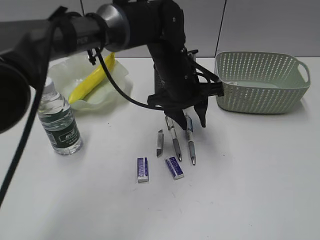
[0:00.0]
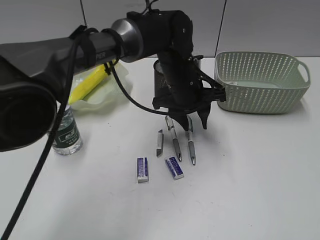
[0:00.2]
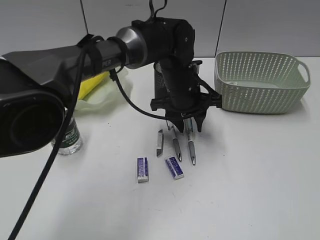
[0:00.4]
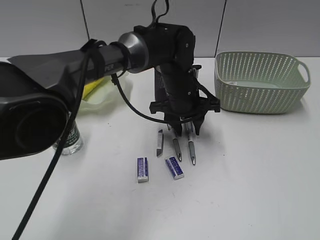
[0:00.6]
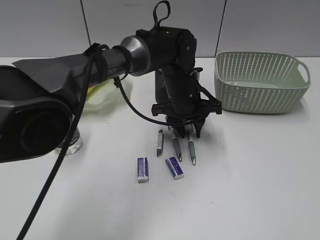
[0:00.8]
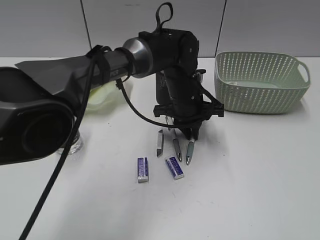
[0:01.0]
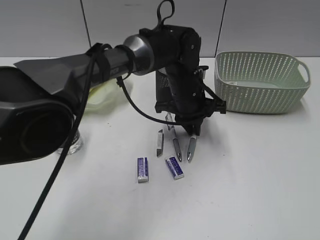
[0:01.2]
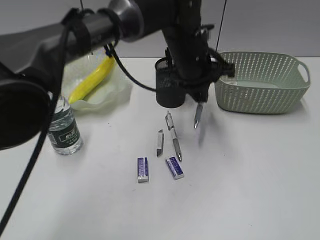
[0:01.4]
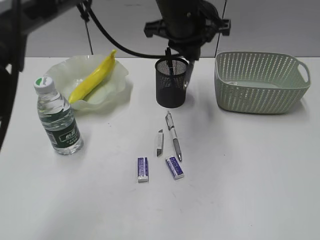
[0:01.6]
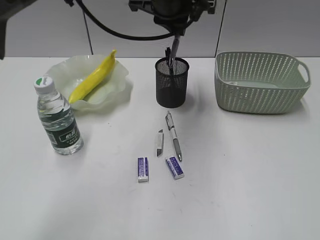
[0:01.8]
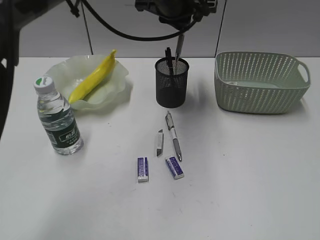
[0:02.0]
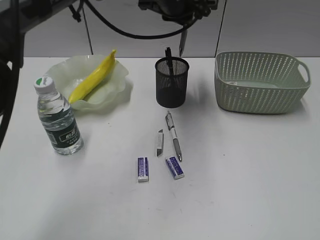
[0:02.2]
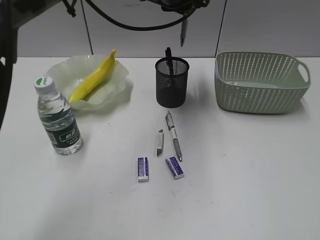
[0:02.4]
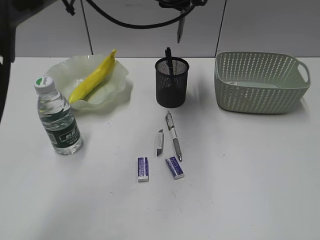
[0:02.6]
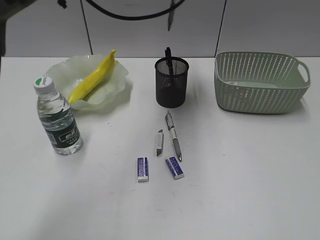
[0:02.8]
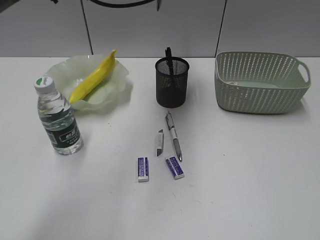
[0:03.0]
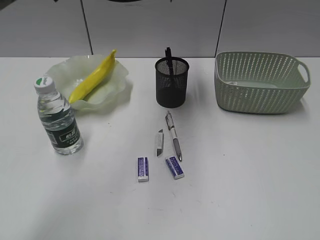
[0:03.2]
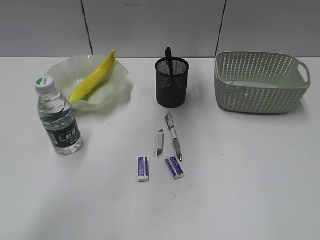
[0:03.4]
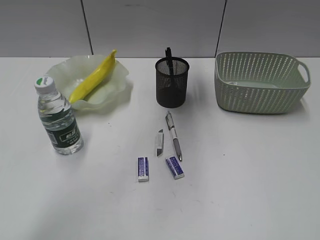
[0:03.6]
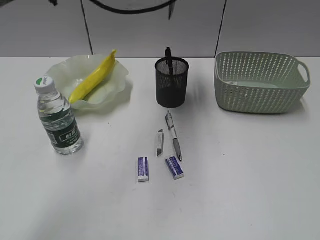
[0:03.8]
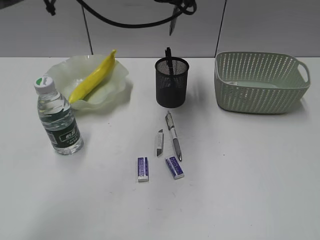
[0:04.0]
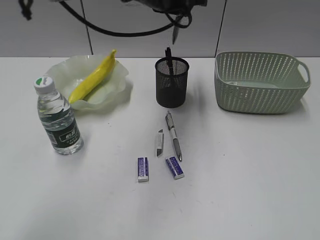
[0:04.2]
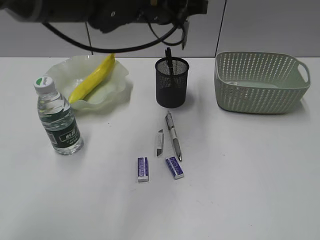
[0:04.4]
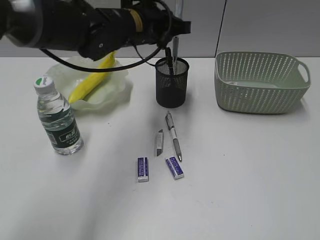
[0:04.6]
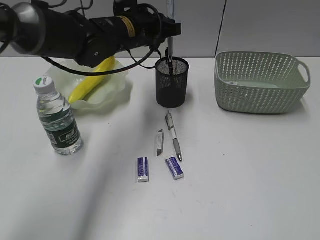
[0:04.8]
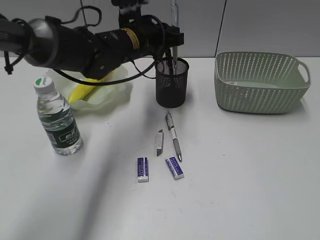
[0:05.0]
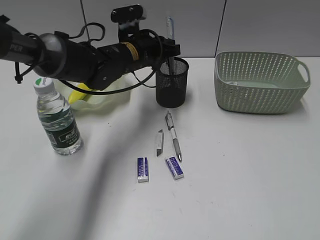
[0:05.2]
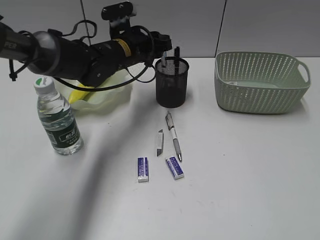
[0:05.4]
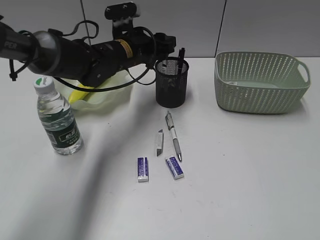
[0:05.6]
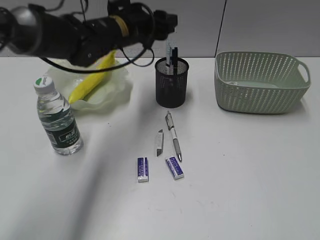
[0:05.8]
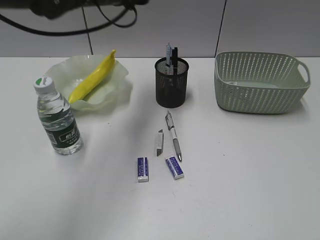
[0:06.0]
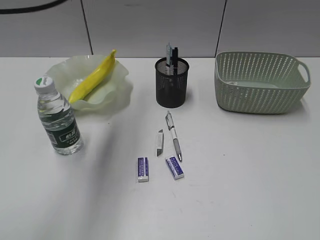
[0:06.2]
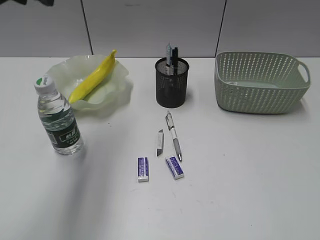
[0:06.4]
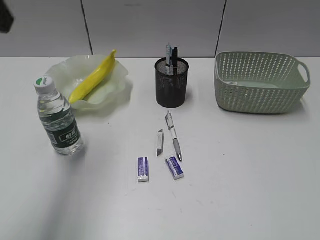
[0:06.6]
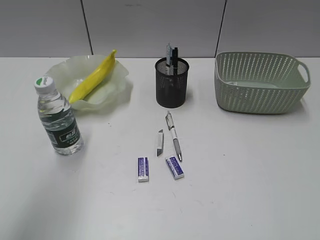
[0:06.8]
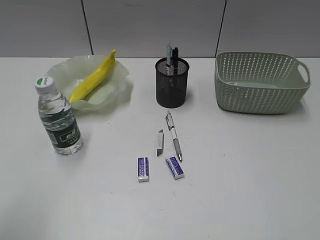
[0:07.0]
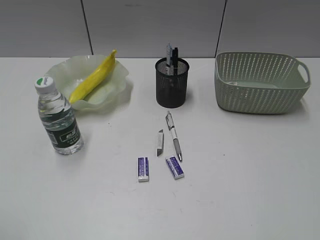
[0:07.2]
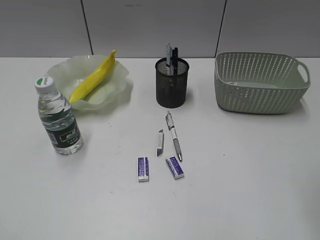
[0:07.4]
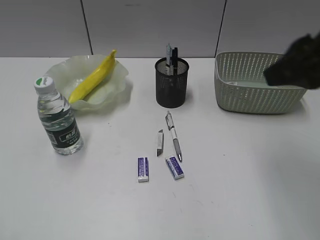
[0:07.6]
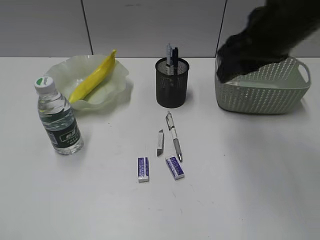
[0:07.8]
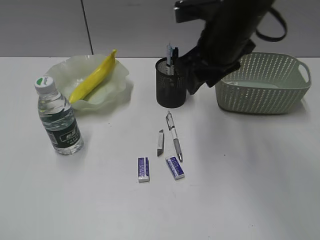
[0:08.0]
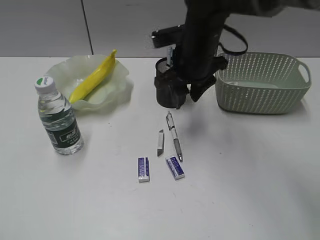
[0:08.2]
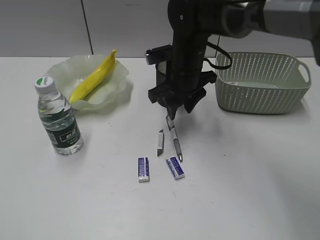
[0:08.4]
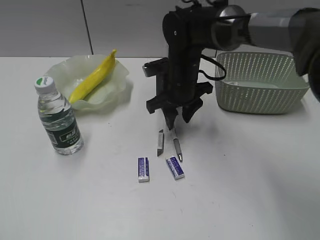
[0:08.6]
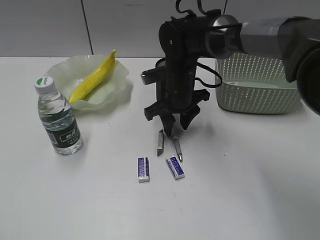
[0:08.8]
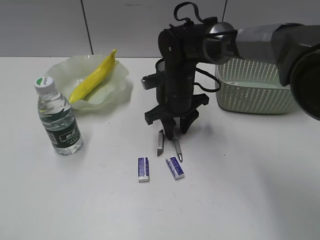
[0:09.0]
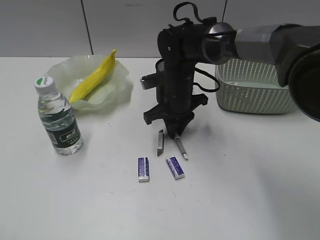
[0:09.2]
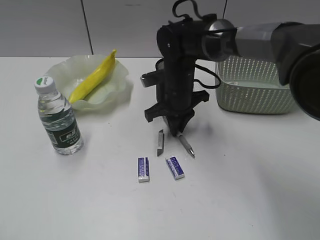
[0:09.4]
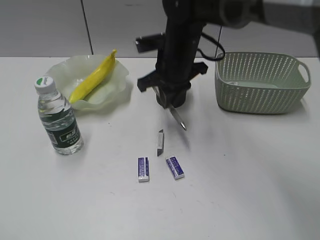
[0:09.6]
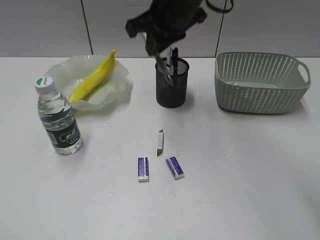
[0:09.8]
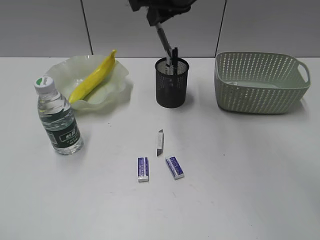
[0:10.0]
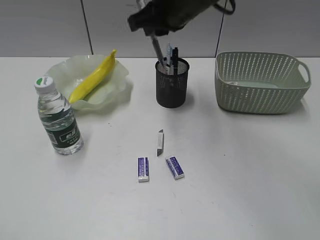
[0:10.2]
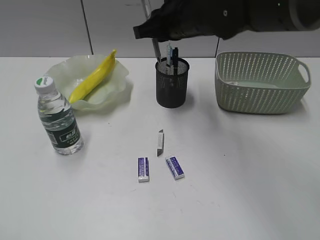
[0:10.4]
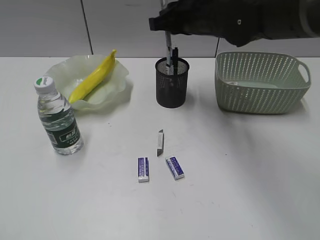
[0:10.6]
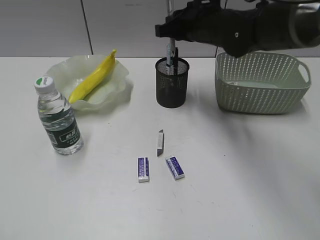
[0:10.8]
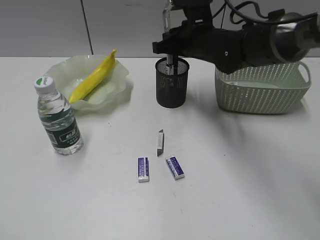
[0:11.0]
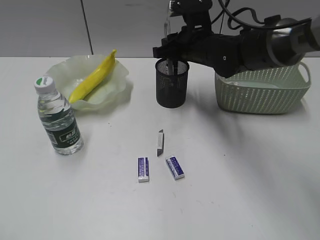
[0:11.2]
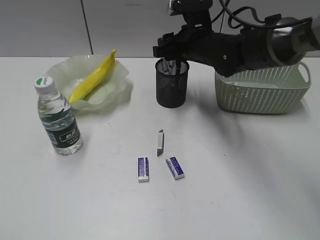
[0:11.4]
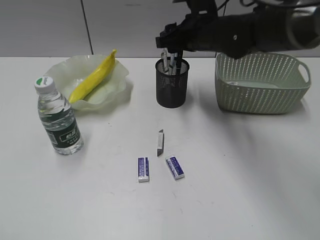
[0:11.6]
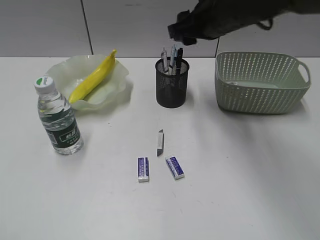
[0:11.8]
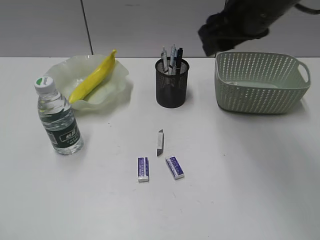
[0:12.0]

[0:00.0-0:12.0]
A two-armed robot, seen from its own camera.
Step, 0:01.2 to 0:05.4: Place the blue pen in pen holder with left gripper.
Step, 0:05.6 to 0:09.2: Grasp the gray pen with right gripper.
Step, 0:09.4 to 0:11.4: Place the gray pen in pen holder with right gripper.
0:00.0 to 0:01.6: The left gripper is displaced upward by about 10 cm, and closes up.
0:01.6 to 0:03.0: The left gripper travels forward and upward by about 10 cm.
0:03.0 to 0:04.4: The left gripper heads backward and downward, covering approximately 10 cm.
0:04.4 to 0:06.0: The left gripper moves to the left, about 5 cm, moves approximately 10 cm downward and comes back, and opens.
0:06.0 to 0:07.6: The right gripper shifts about 20 cm forward and to the left. The left gripper heads backward and to the left, covering approximately 50 cm.
0:07.6 to 0:09.0: The right gripper travels downward, forward and to the left by some 35 cm.
0:09.0 to 0:10.4: The right gripper is displaced upward by approximately 15 cm, and closes its fingers.
0:10.4 to 0:12.0: The right gripper shifts roughly 10 cm to the right, backward and upward, and opens its fingers.

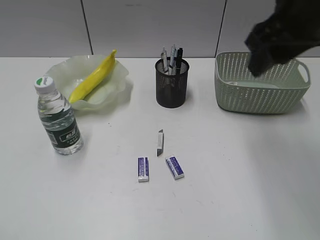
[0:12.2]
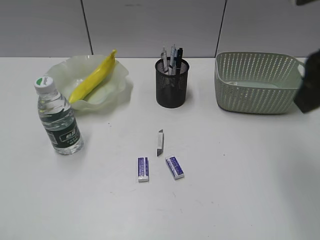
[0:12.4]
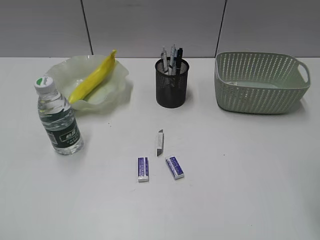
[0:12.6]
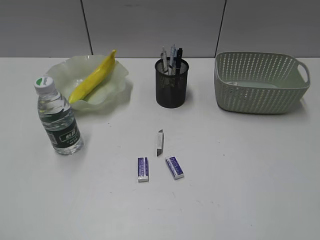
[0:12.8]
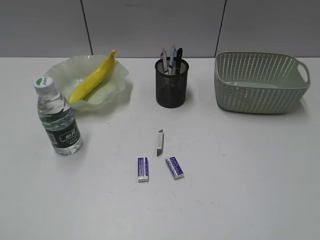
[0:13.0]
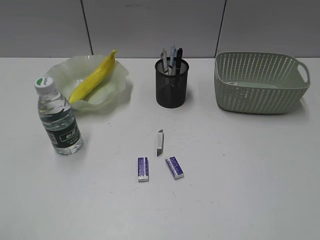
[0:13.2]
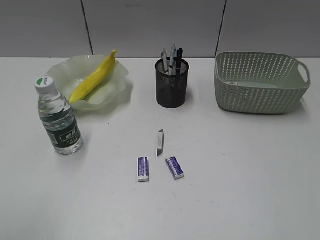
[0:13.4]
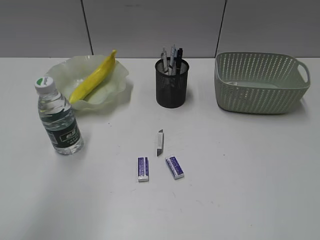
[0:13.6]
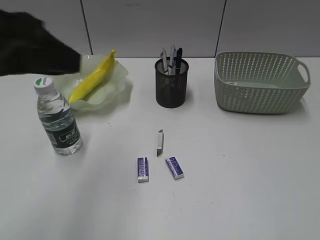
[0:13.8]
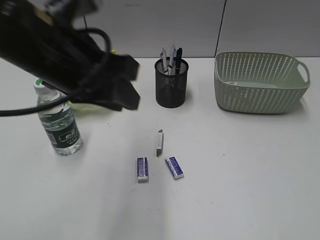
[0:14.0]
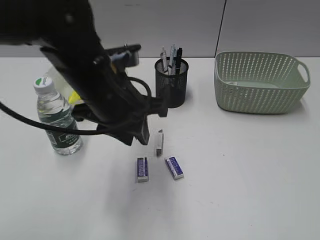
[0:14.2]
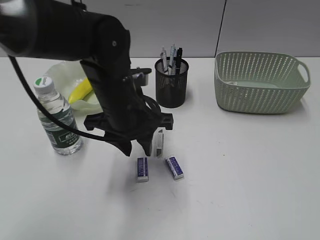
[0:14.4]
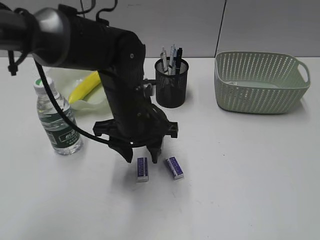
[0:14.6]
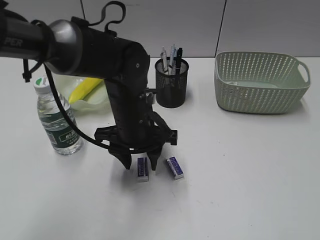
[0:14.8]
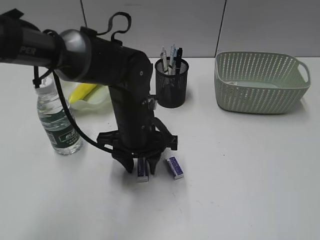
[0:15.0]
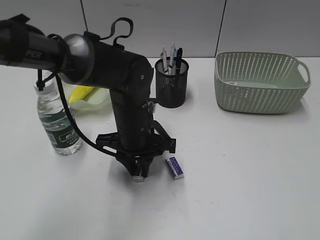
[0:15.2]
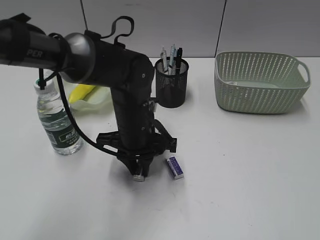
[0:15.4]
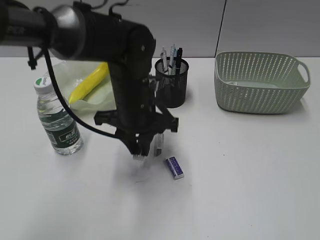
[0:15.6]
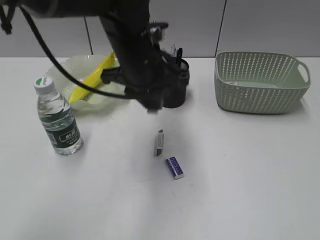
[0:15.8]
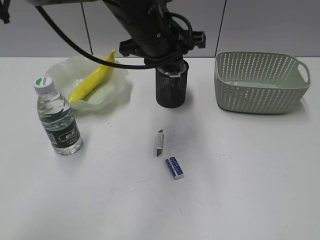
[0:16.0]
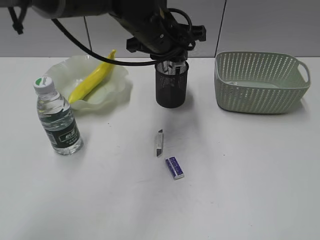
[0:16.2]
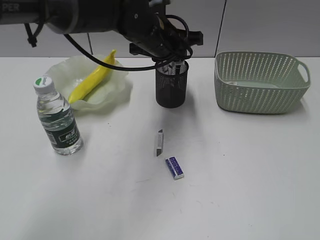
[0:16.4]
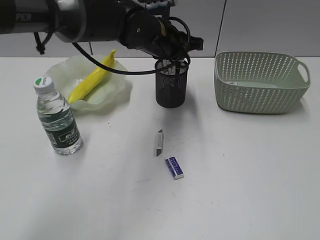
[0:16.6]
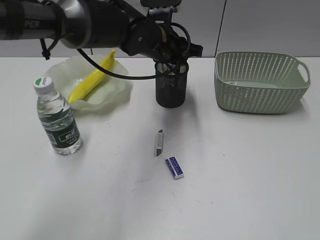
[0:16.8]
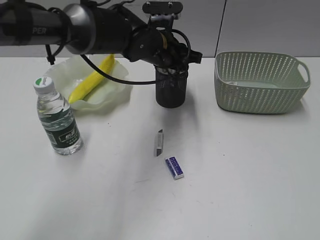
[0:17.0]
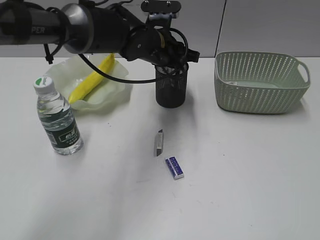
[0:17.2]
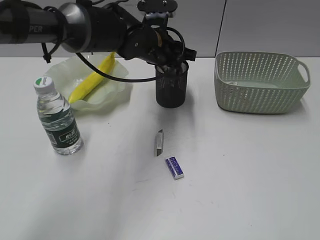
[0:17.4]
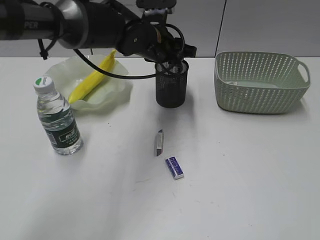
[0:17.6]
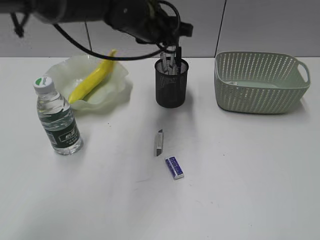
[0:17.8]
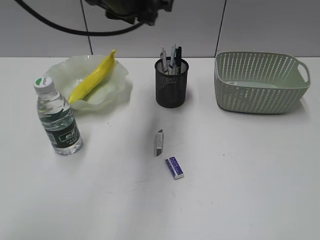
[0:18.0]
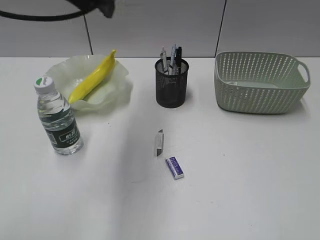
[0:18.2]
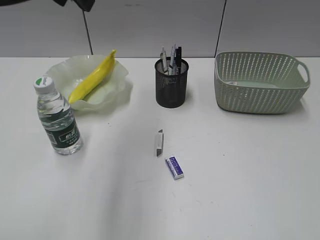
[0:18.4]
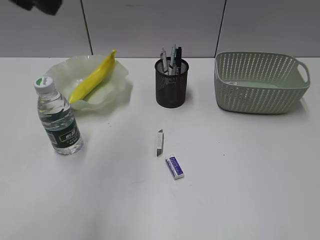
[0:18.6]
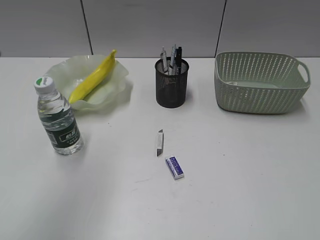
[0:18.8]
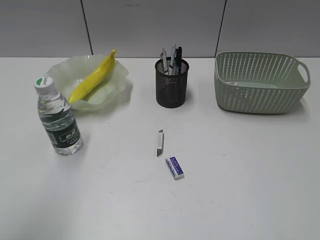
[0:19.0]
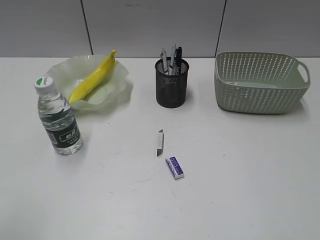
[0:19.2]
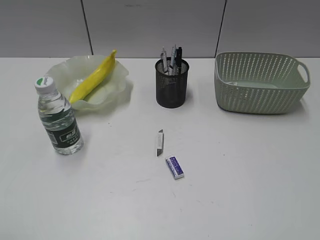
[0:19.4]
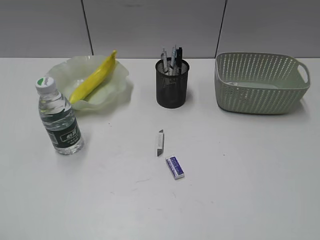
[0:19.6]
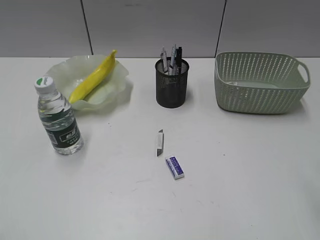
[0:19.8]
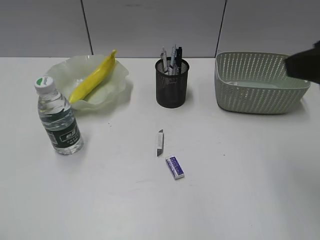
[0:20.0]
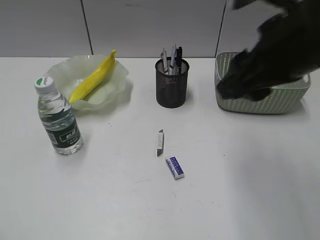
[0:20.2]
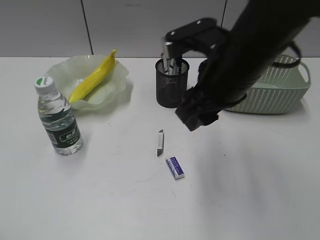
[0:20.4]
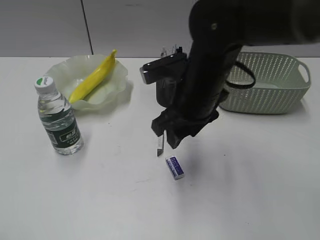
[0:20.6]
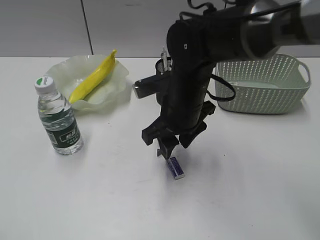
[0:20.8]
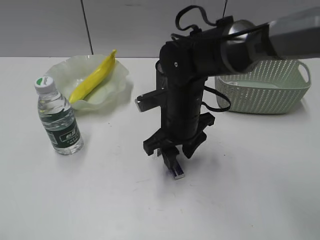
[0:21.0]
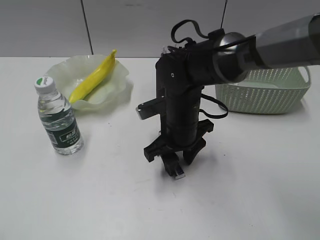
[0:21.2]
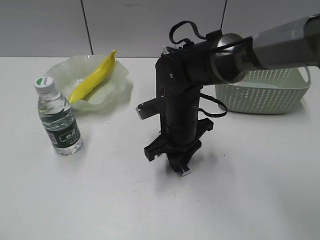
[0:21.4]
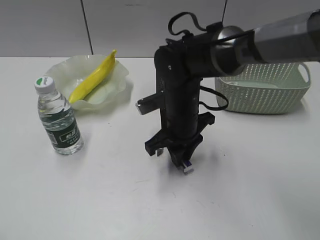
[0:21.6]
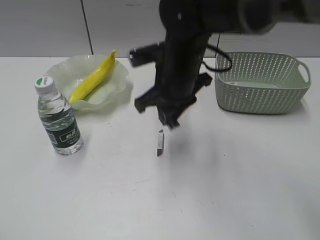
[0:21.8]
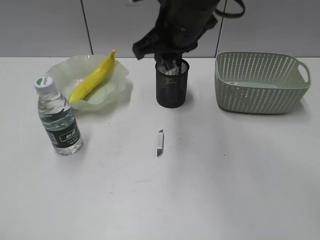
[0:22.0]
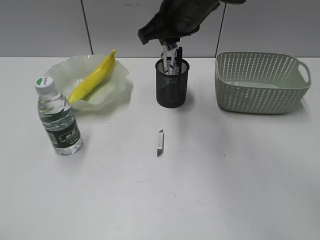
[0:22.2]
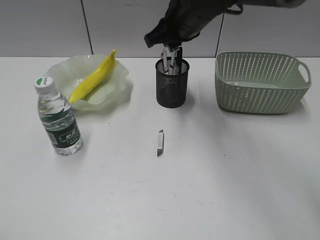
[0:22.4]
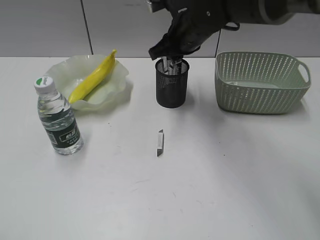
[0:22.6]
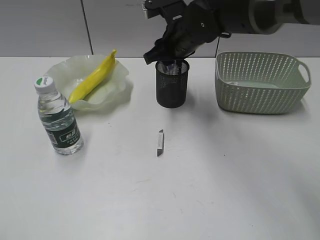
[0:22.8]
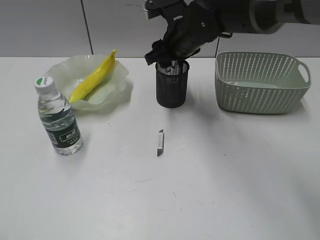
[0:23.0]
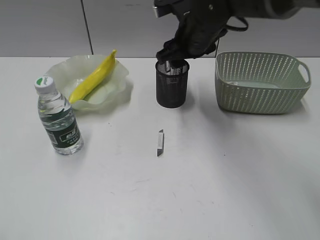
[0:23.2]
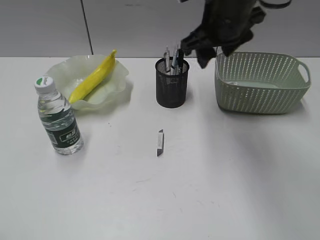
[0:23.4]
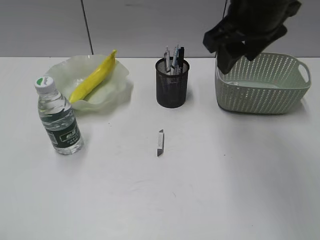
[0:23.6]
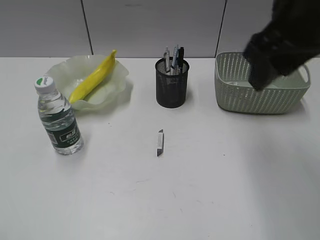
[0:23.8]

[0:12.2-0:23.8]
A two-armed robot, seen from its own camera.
Step, 0:12.2 to 0:15.2: Grasp the eraser with left gripper.
Step, 0:15.4 to 0:17.6: Place the eraser in pen holder with left gripper.
Step, 0:17.8 to 0:21.4: Grasp the eraser with right gripper.
Step, 0:21.6 to 0:23.0: Place the eraser in pen holder with right gripper.
0:12.2 to 0:13.6: The left gripper shifts about 15 cm forward, to the right and upward. The right gripper shifts approximately 30 cm backward and to the right.
0:13.6 to 0:15.0: The left gripper goes about 35 cm downward, to the right and forward.
0:15.0 to 0:16.6: The left gripper moves forward and upward, some 15 cm, and closes up.
0:16.6 to 0:18.0: The left gripper travels upward by roughly 10 cm.
0:18.0 to 0:19.4: The left gripper shifts roughly 40 cm backward and to the left.
0:19.4 to 0:21.0: The right gripper shifts roughly 40 cm forward, to the left and downward.
0:21.0 to 0:22.4: The right gripper moves upward and forward, some 15 cm, and closes.
0:22.4 to 0:23.8: The right gripper is displaced backward, to the right and upward by some 20 cm, and opens its fingers.
